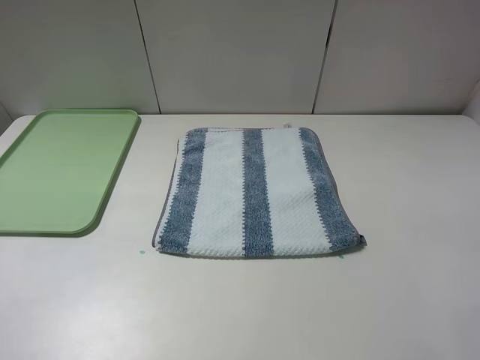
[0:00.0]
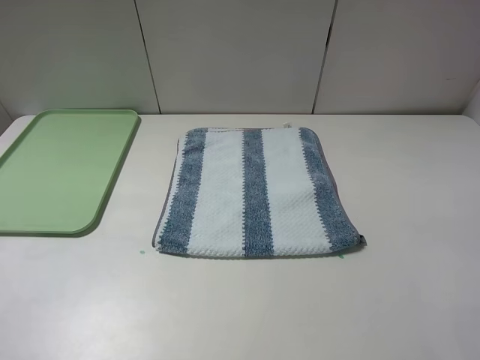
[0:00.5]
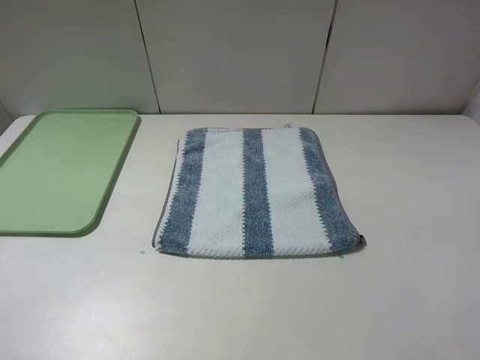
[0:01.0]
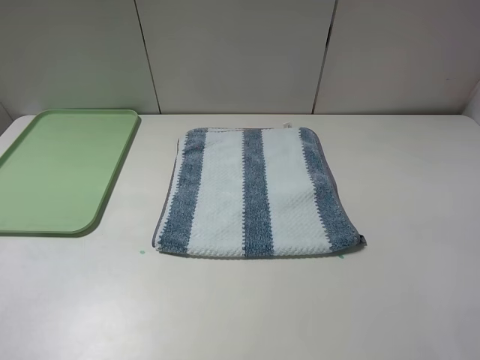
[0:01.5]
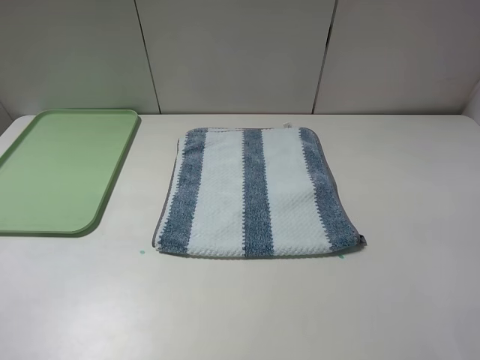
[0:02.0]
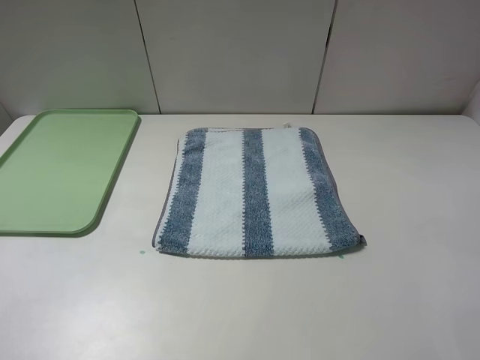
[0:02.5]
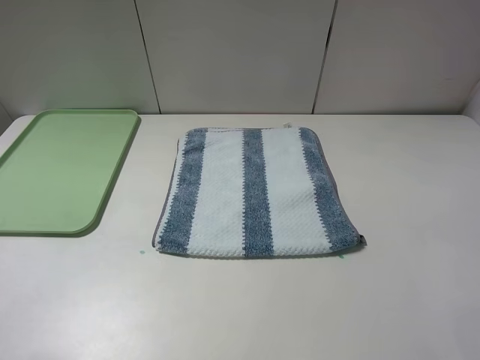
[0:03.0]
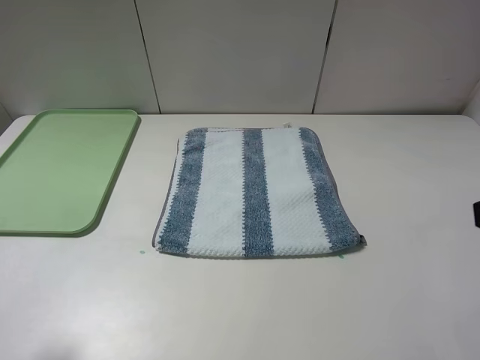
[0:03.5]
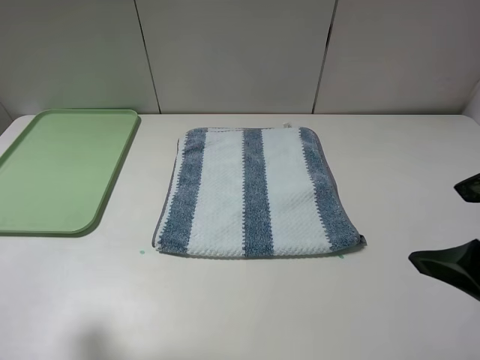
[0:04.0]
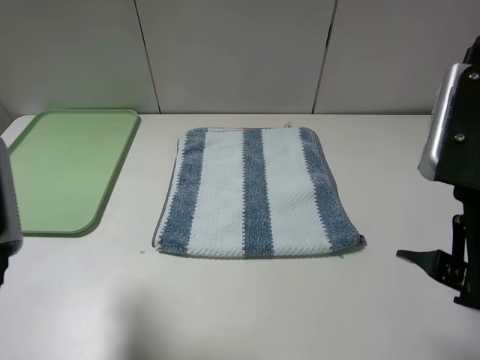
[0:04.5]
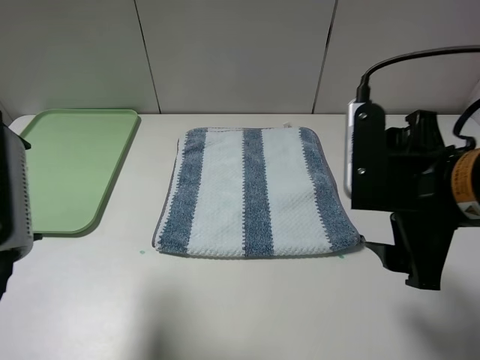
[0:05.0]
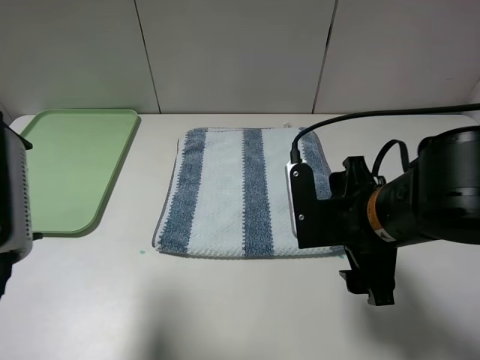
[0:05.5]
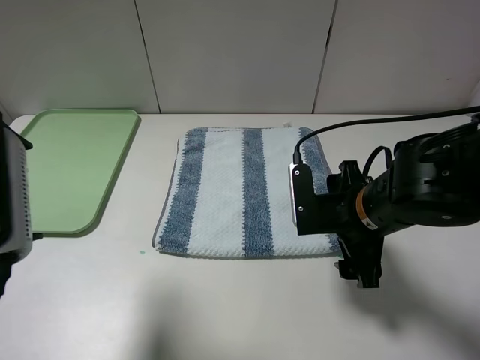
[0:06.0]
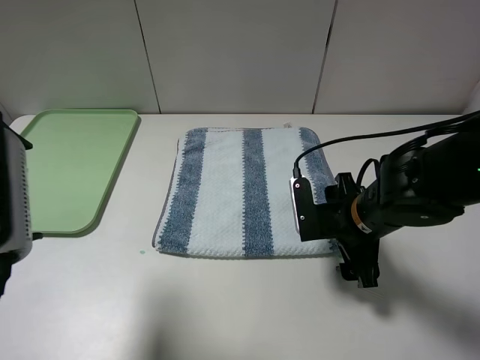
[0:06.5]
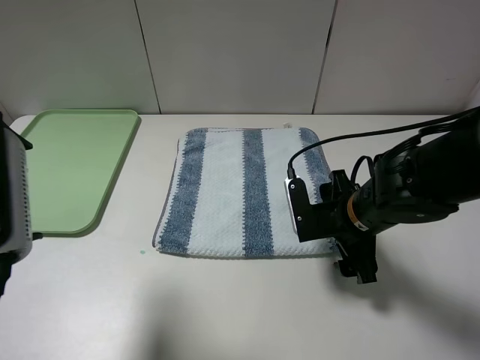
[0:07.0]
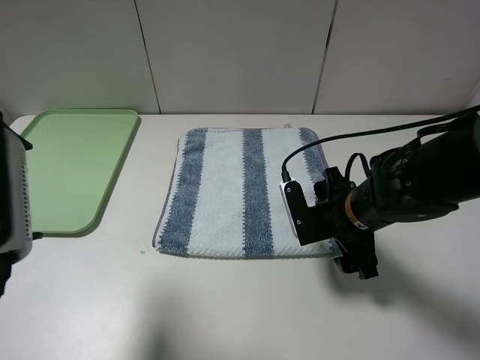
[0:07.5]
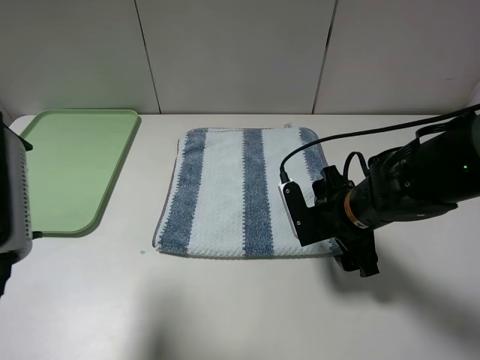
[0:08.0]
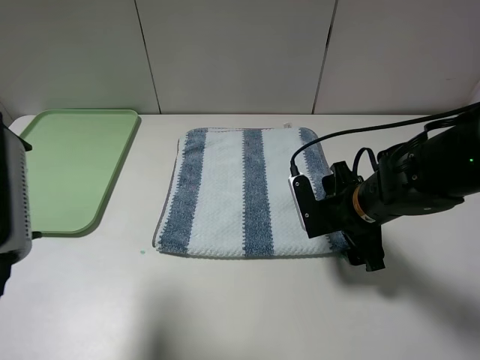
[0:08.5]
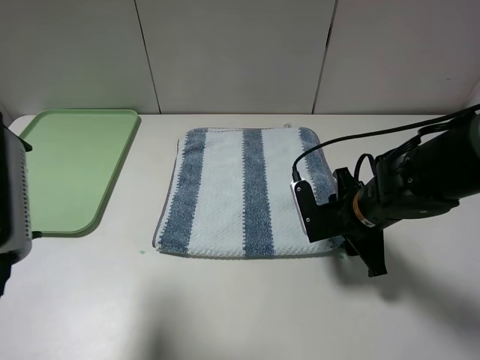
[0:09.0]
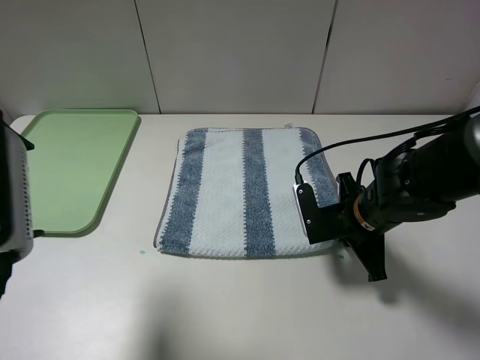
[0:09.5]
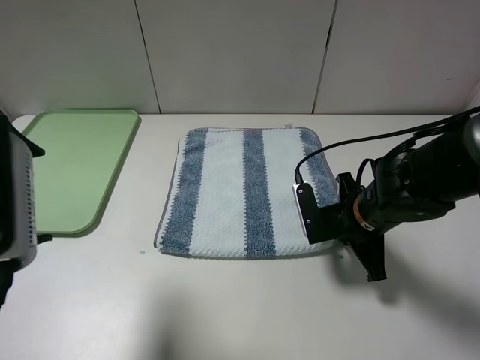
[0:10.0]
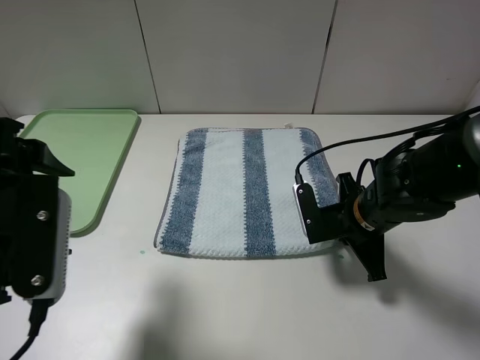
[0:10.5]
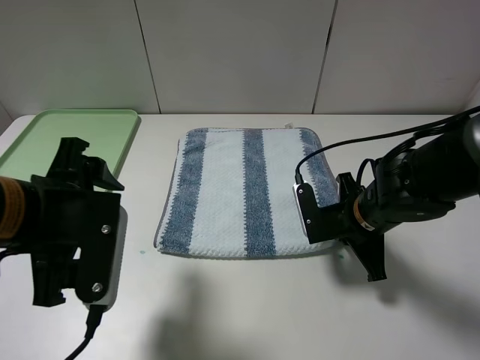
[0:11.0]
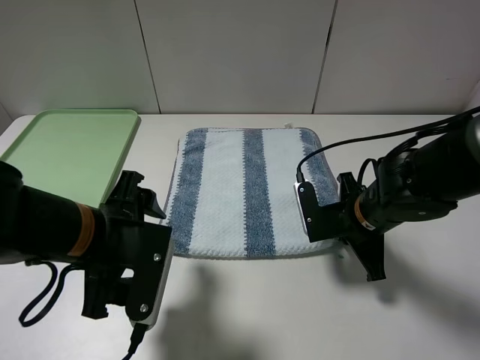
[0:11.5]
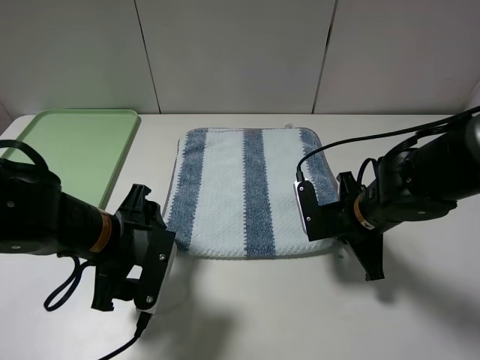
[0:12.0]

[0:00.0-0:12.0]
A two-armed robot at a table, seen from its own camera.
Step, 0.0 to 10.0 s: Grasp the blue white towel with the right gripper.
0.0 to 2.0 s: The two grippers keep their place.
2.0 to 4.0 s: The right gripper shifts about 10 cm forward and to the left. The left gripper shifts approximately 10 cm forward.
4.0 to 6.0 s: The right gripper is displaced downward, forward and to the left by some 20 cm. The left gripper shifts roughly 5 cm to the right.
6.0 to 8.0 s: The right gripper shifts by about 5 cm.
8.0 to 10.0 s: The right gripper closes up.
10.0 to 12.0 s: The left gripper moves downward and to the right, some 20 cm.

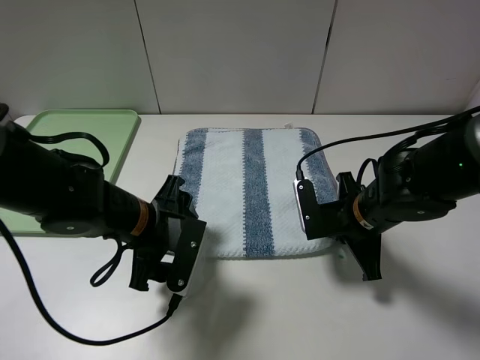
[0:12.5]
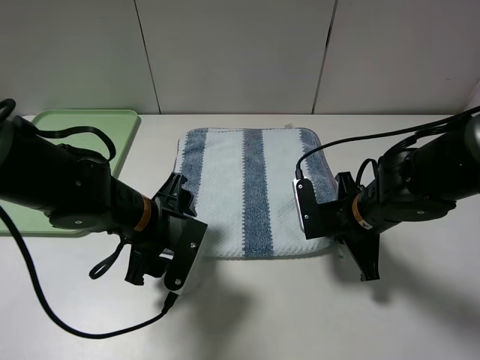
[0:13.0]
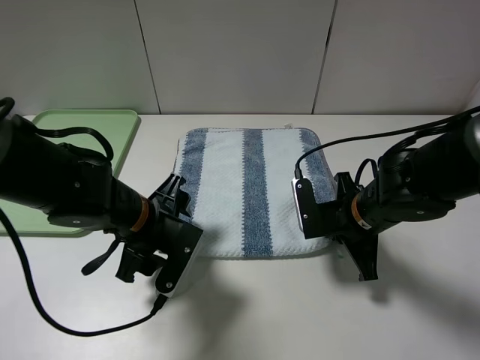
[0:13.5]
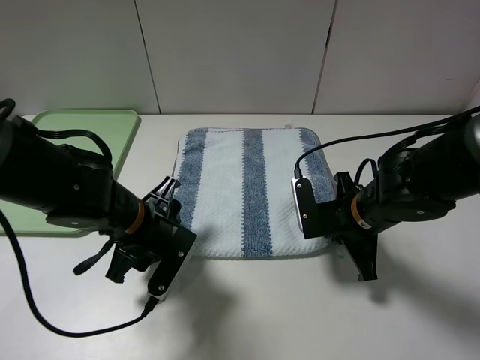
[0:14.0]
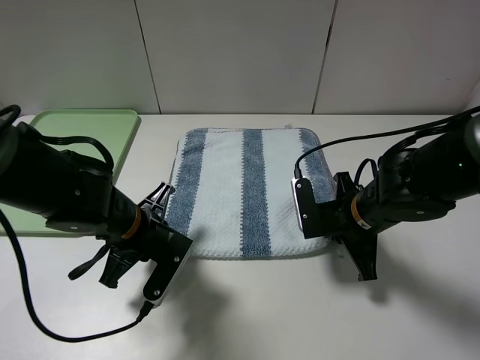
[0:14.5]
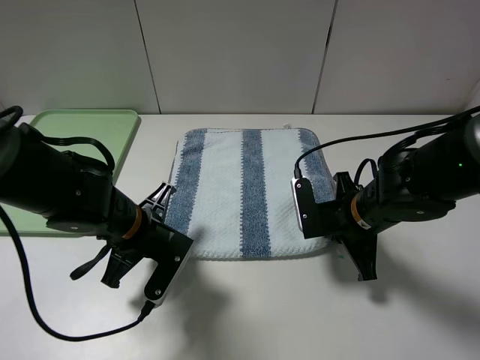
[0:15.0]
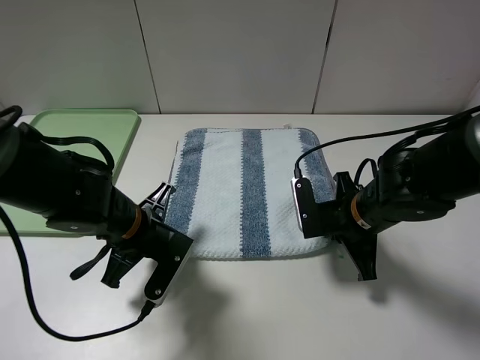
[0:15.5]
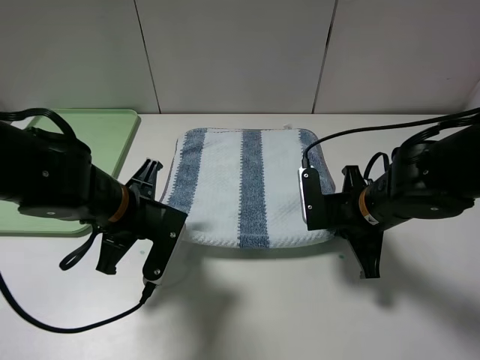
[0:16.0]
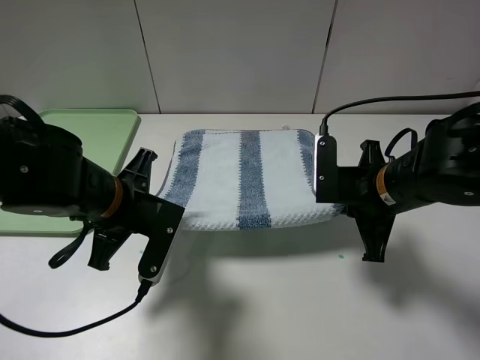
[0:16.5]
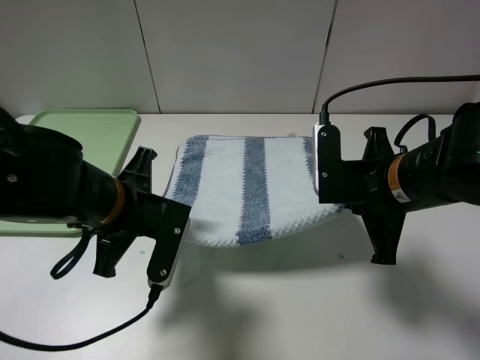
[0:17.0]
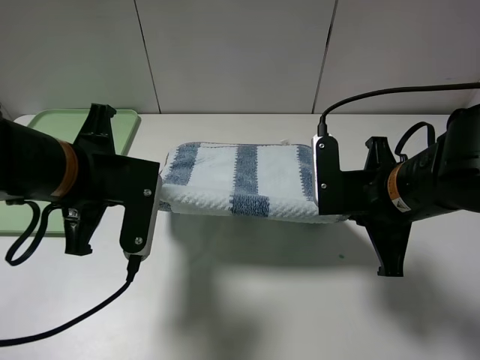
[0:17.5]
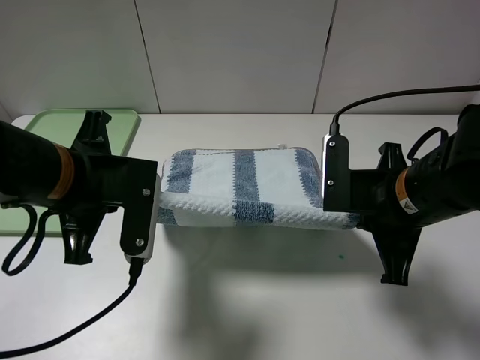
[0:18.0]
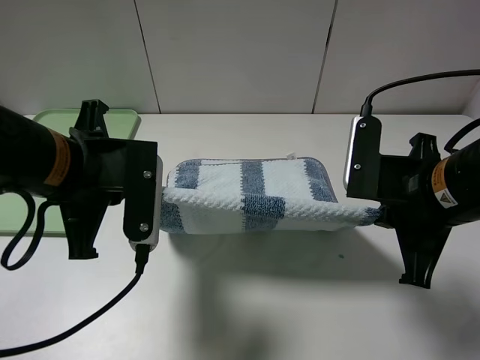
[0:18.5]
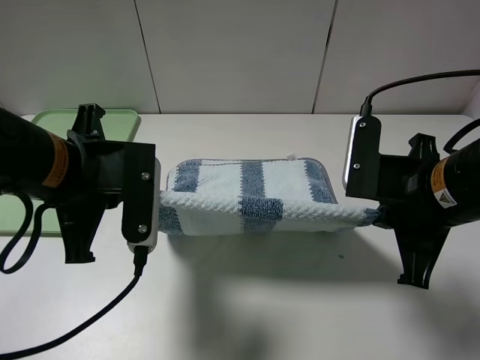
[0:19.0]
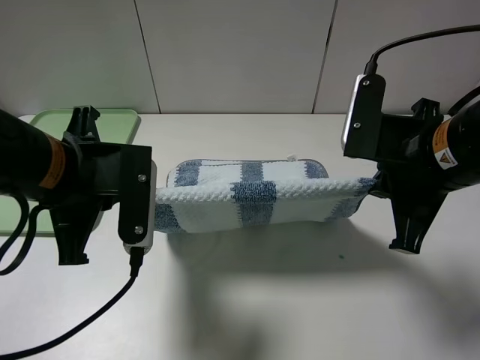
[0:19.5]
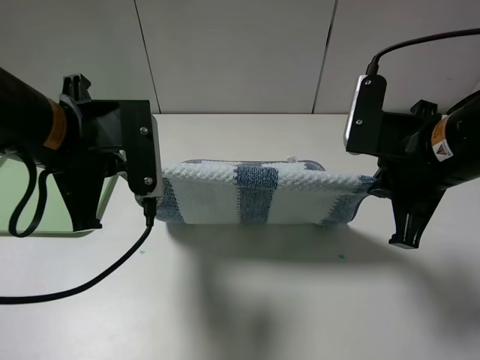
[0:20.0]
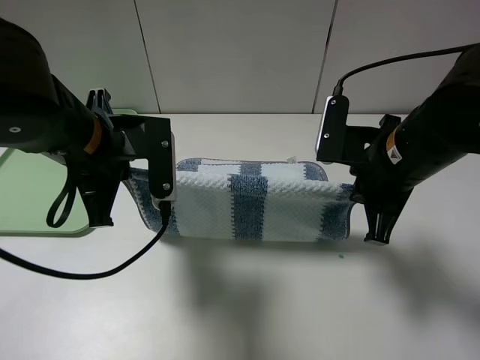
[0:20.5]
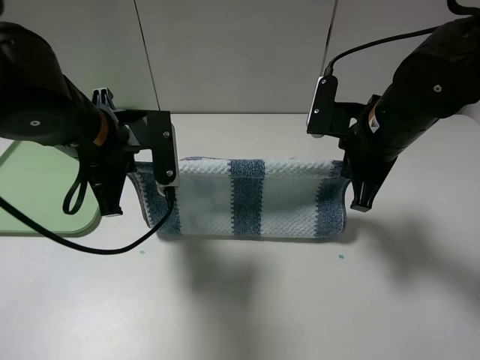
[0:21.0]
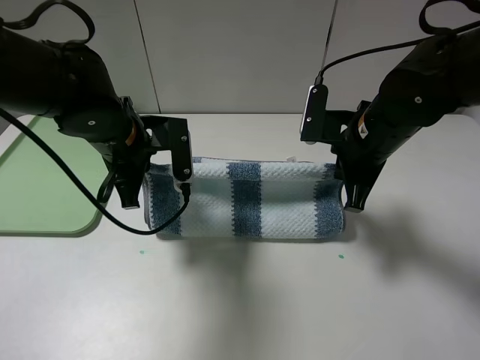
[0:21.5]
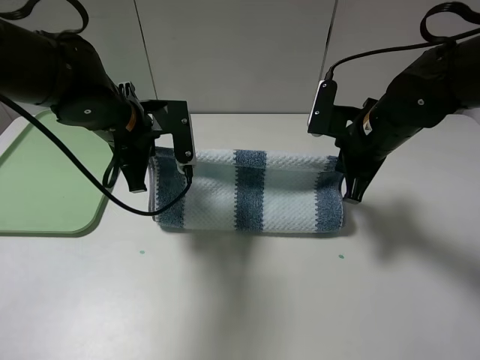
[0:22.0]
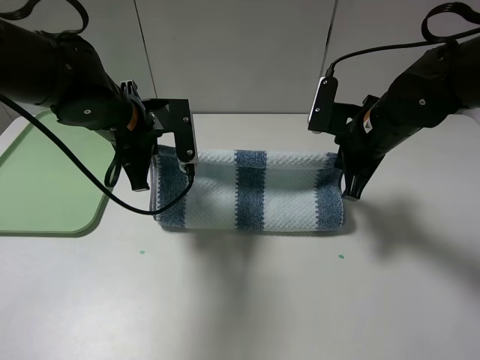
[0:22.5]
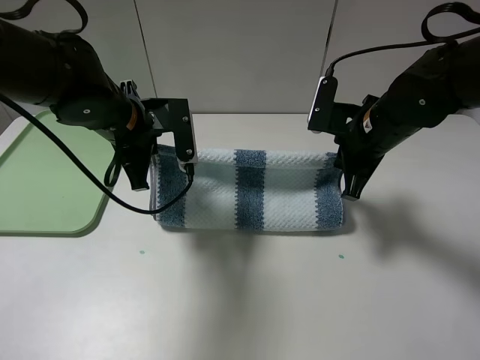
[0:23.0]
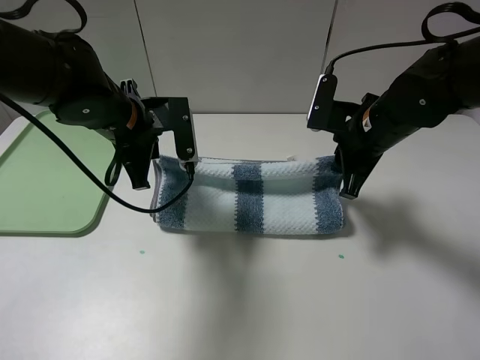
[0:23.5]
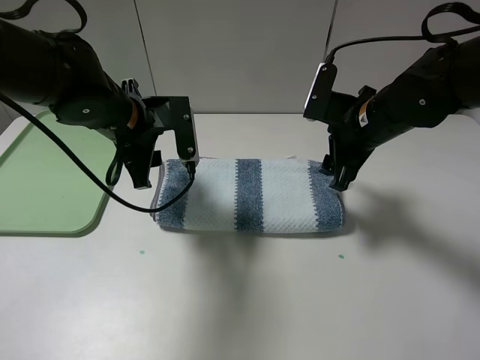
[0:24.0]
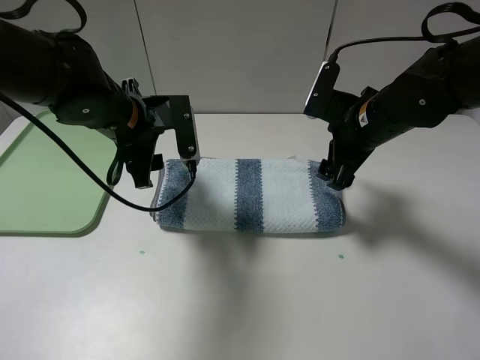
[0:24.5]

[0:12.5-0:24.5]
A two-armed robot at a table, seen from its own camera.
Step, 12.5 to 15.5 s: Grasp the blue white towel with the left gripper.
12.5 to 14.5 s: The left gripper closes.
14.5 to 16.5 s: Both grippers move upward, roughly 5 cm.
16.5 to 18.5 s: The right gripper shifts roughly 10 cm backward and upward; the left gripper heads upward, covering some 10 cm.
18.5 to 20.5 s: The grippers both shift forward by some 5 cm.
20.5 to 22.5 s: The grippers both shift forward by some 10 cm.
22.5 to 24.5 s: The right gripper opens its fingers. The left gripper opens.

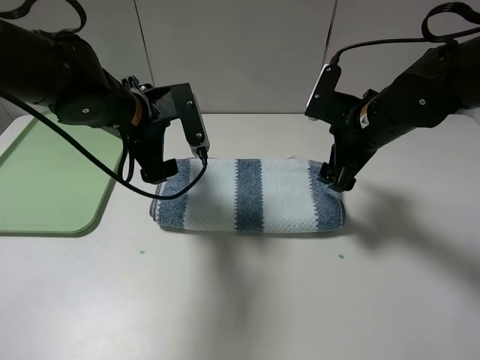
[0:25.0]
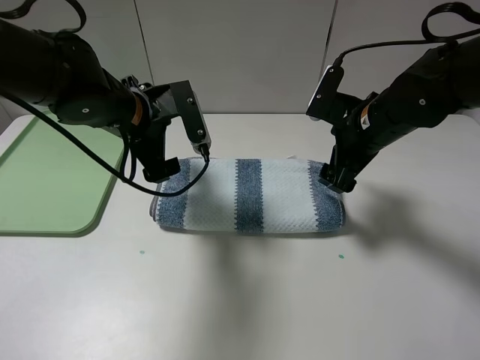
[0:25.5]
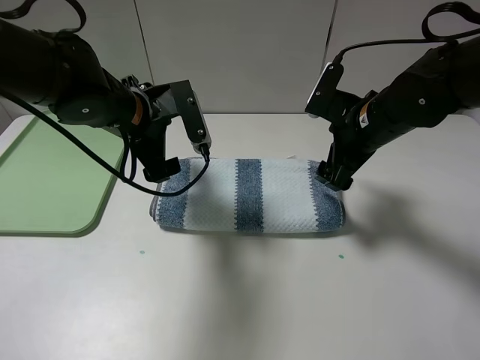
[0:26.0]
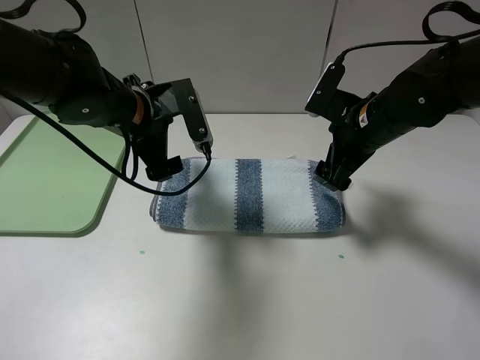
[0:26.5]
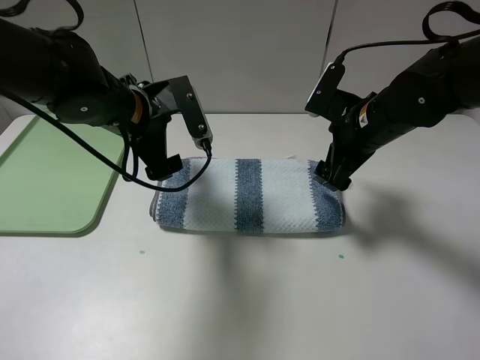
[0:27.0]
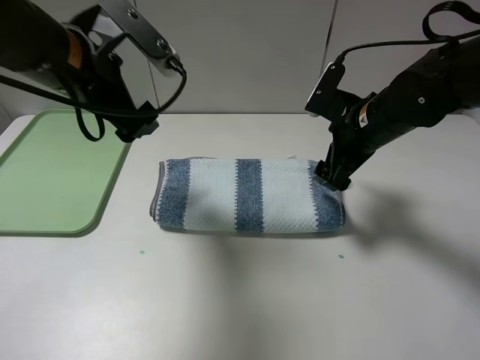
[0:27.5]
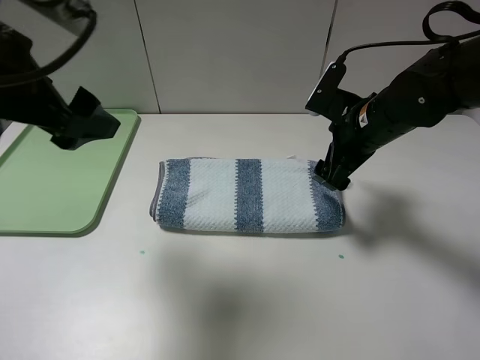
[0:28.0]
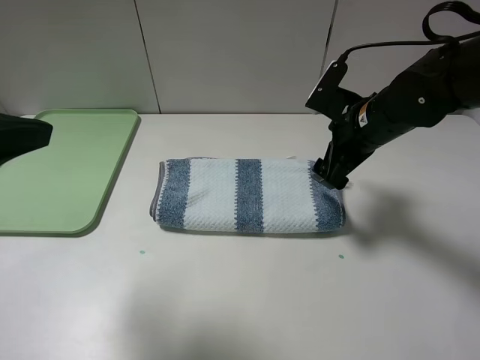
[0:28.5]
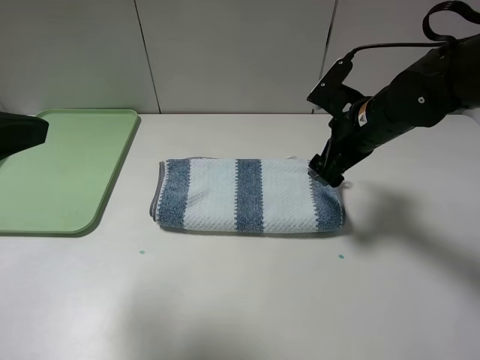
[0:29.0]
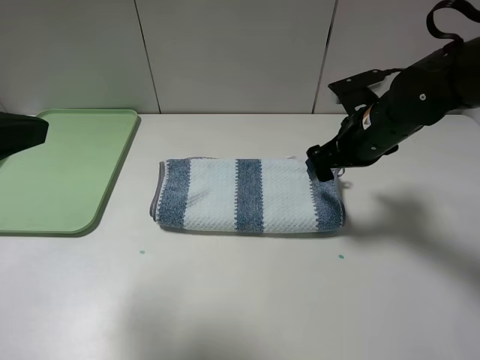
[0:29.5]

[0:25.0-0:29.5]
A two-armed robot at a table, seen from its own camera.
25.0 to 27.0 s: The grippers move only a little.
27.0 to 29.5 s: The left gripper travels backward, upward and to the left by about 25 cm.
